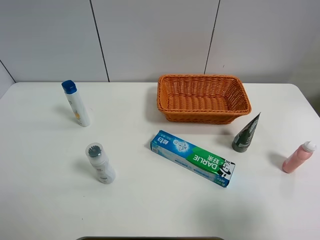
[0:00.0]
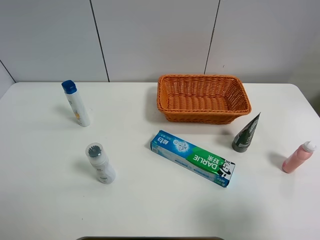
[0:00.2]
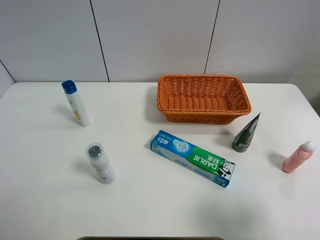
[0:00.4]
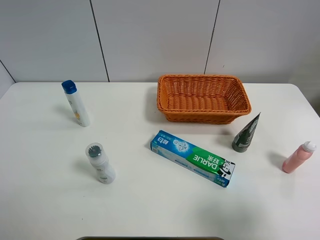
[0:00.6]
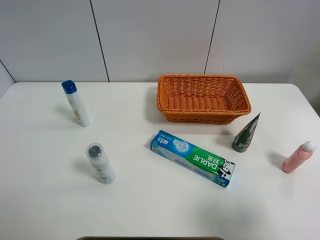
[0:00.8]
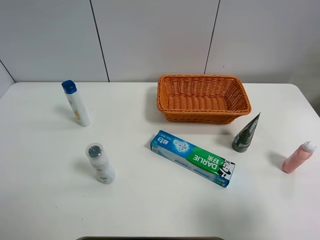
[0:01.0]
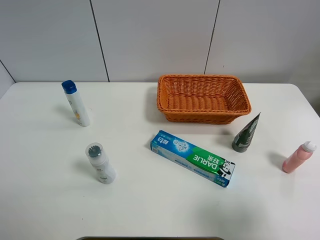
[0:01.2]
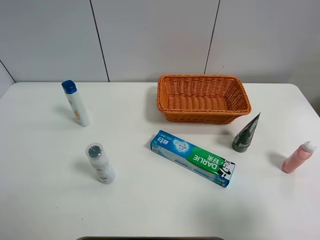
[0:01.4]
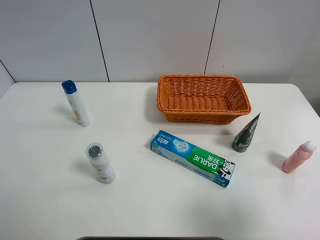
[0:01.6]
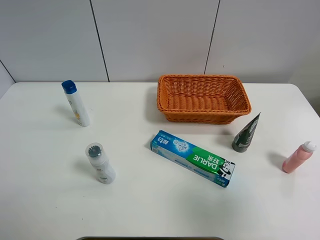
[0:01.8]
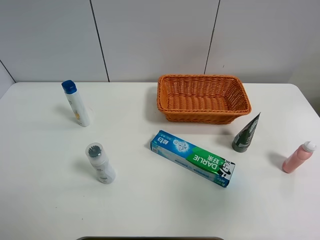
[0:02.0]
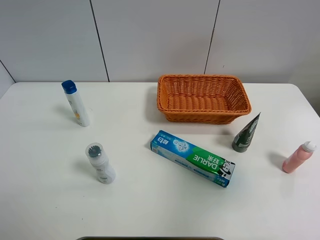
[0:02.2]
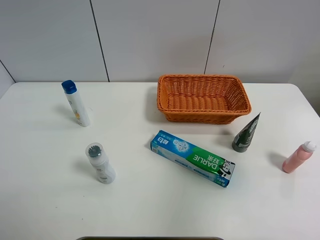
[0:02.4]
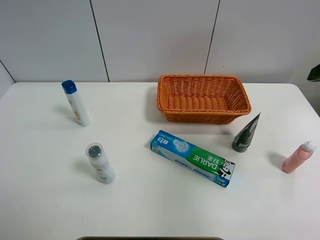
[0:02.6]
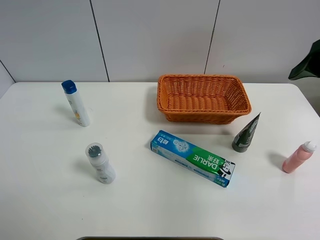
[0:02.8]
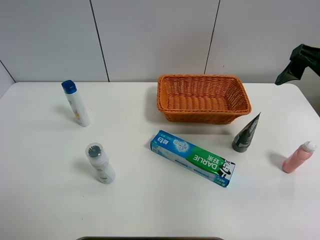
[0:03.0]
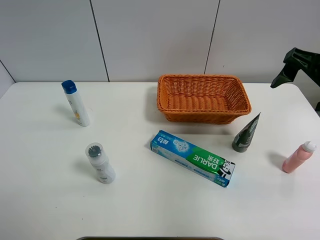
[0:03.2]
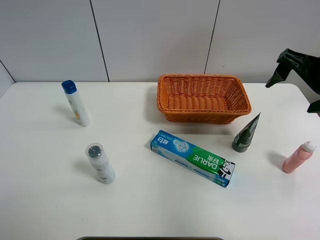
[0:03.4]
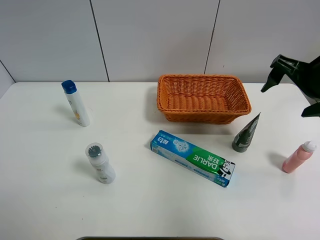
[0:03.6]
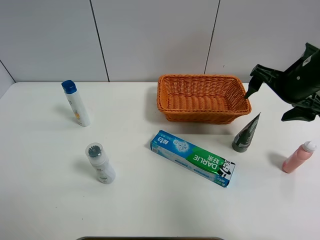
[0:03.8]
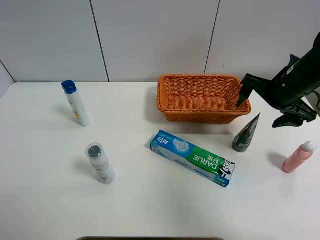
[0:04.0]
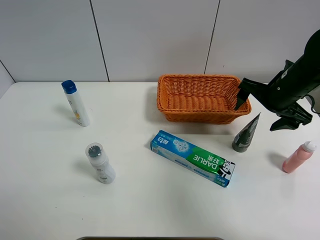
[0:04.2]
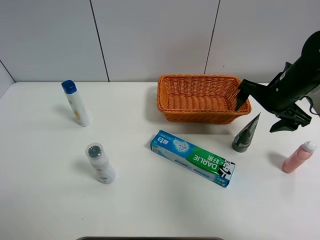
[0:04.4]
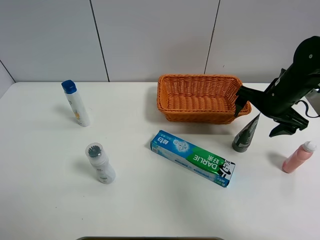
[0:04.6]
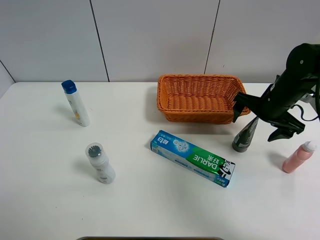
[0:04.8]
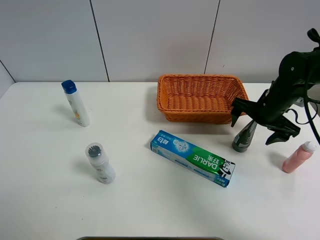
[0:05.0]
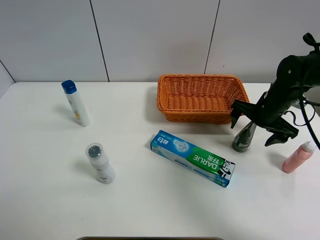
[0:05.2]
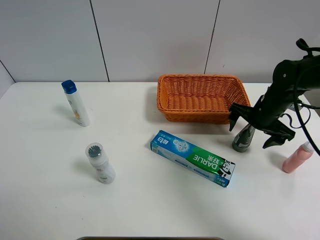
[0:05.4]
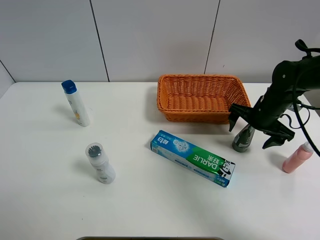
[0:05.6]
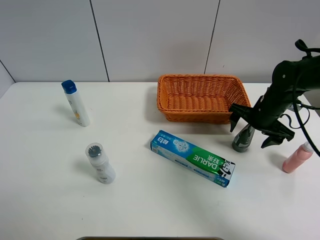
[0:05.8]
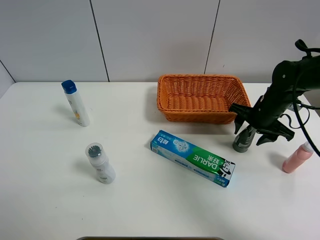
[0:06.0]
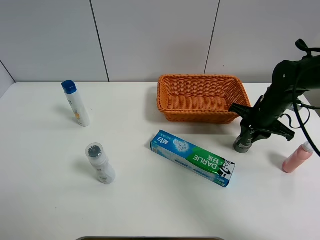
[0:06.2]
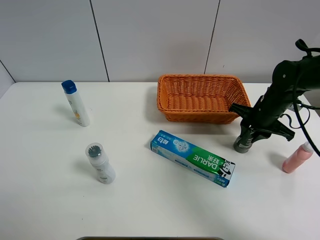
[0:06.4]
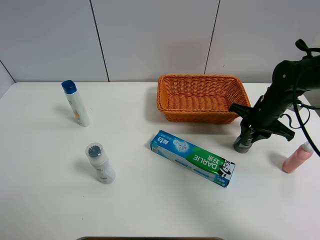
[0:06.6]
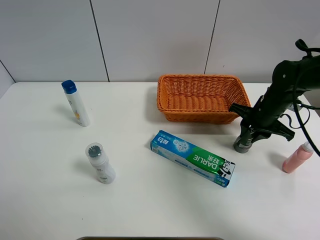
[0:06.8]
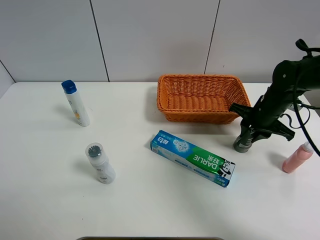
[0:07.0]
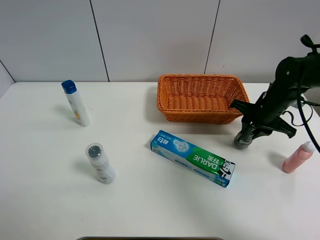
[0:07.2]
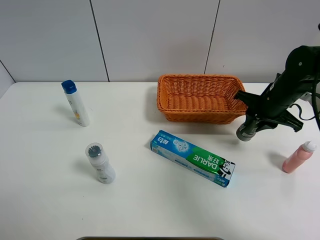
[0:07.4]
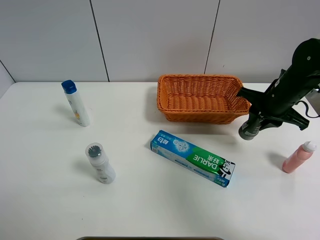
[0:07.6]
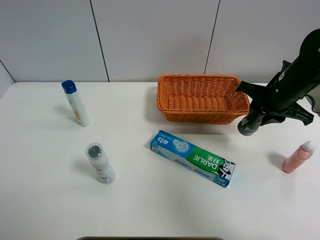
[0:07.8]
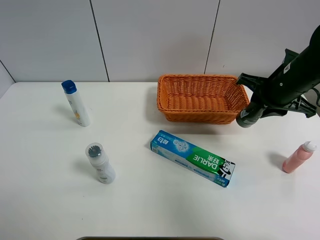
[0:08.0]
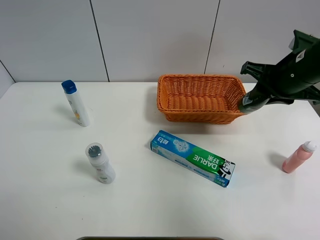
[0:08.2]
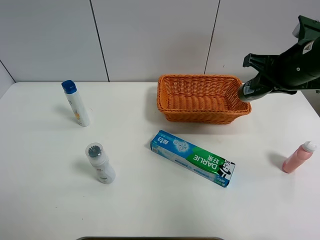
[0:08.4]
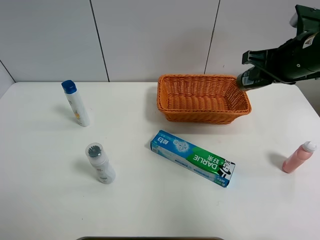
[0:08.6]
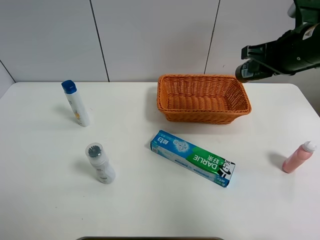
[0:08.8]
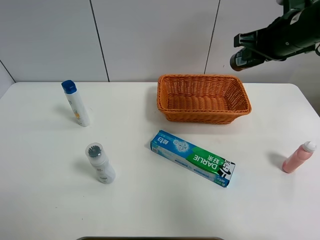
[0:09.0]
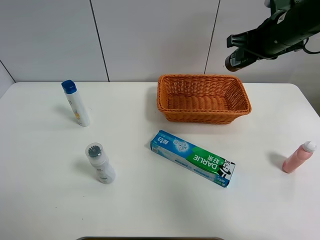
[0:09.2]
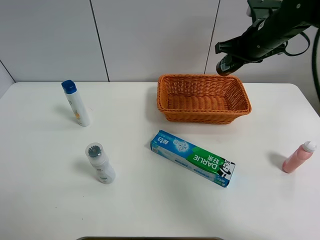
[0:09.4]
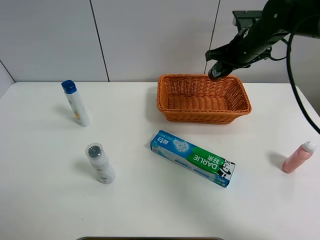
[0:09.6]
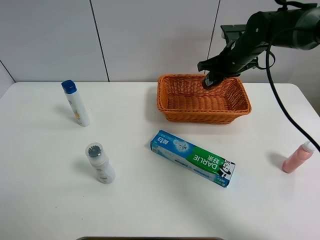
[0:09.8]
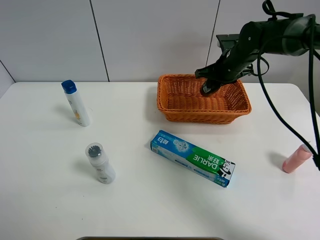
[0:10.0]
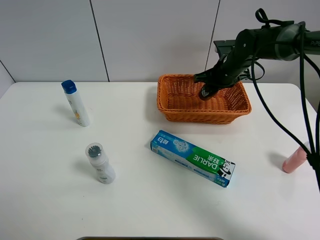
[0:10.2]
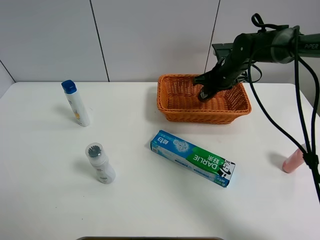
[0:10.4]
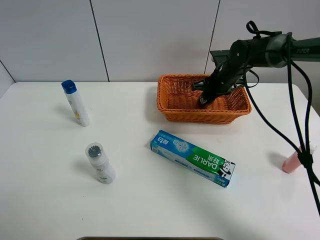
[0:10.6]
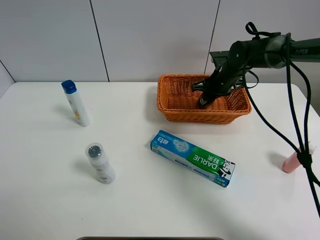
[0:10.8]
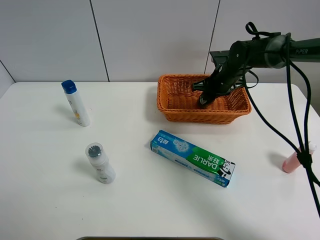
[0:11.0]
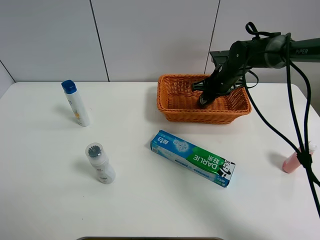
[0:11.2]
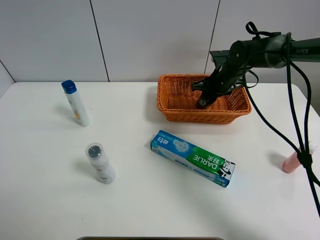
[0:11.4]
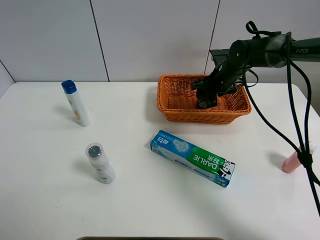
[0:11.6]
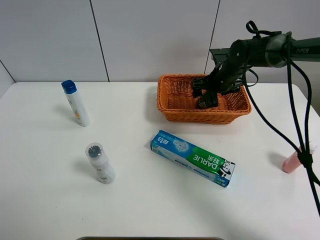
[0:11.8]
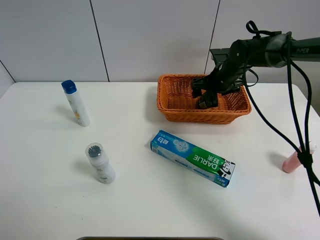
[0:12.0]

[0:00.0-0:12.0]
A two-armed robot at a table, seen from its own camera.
Task of the whole recording: Place the object closest to the toothpaste in the basket.
Step, 0:00.0 to 0:06.2: Grasp the soft facial cleanser with right gripper.
0:01.6 to 0:03.0: The right gripper goes about 25 cm forward.
0:03.0 to 0:04.4: The right gripper moves downward and forward, some 15 cm.
0:04.4 to 0:06.0: The right gripper moves downward, approximately 10 cm, and closes its fingers.
0:06.0 to 0:07.6: The right gripper heads upward, covering about 5 cm.
0:07.6 to 0:09.0: The right gripper heads upward, covering roughly 10 cm.
0:09.0 to 0:10.4: The right gripper shifts roughly 20 cm downward and forward.
0:10.4 to 0:12.0: The right gripper opens its fingers.

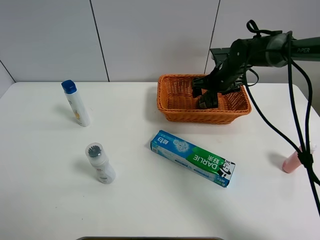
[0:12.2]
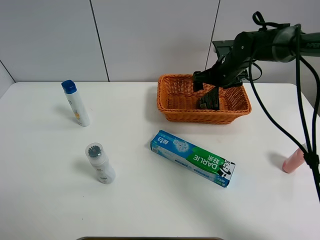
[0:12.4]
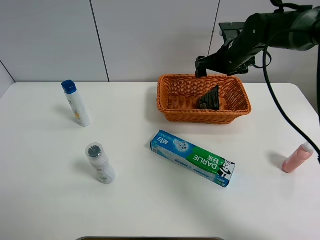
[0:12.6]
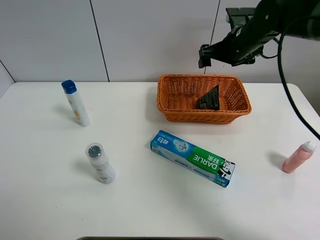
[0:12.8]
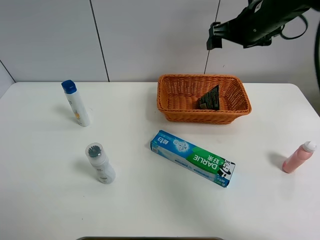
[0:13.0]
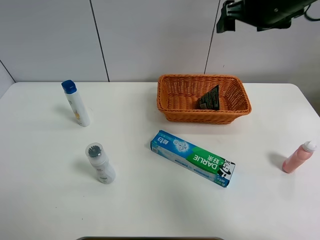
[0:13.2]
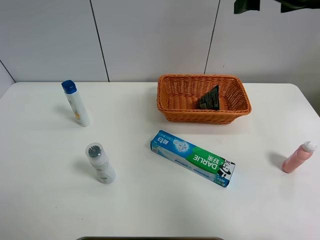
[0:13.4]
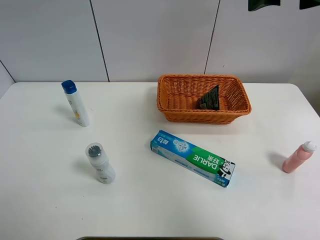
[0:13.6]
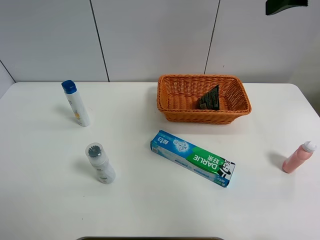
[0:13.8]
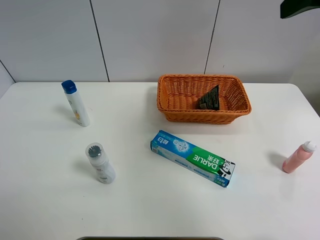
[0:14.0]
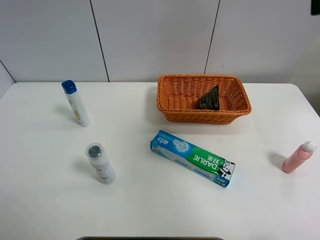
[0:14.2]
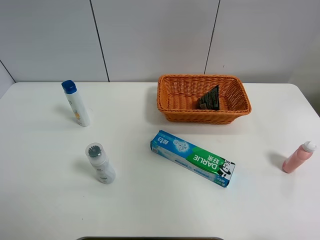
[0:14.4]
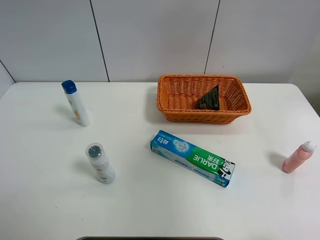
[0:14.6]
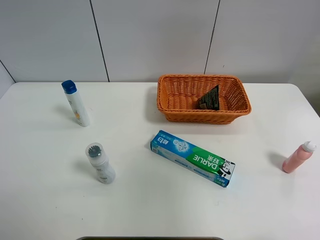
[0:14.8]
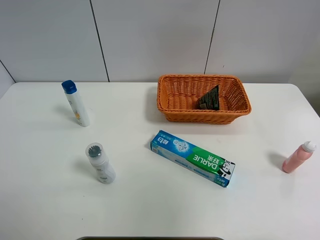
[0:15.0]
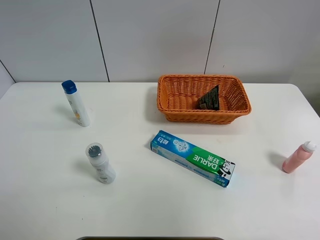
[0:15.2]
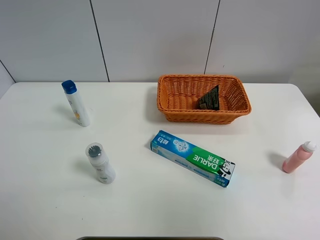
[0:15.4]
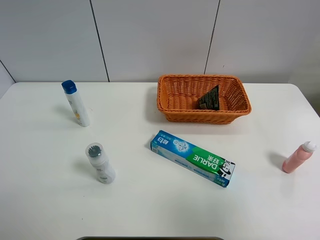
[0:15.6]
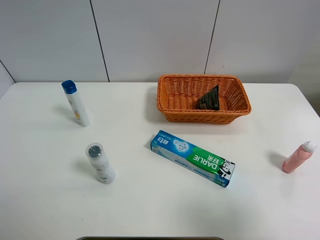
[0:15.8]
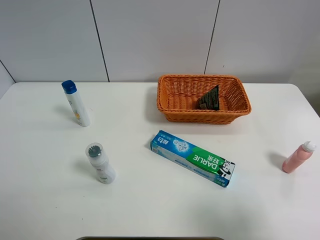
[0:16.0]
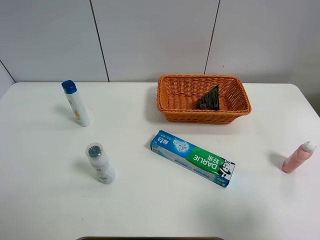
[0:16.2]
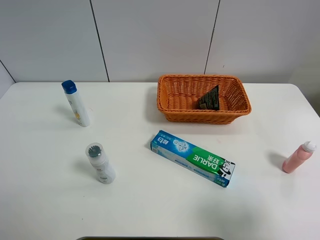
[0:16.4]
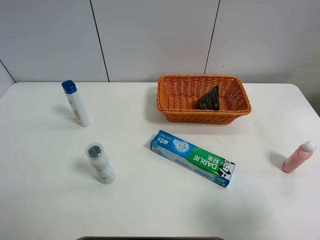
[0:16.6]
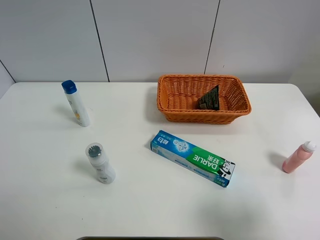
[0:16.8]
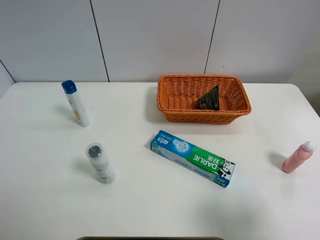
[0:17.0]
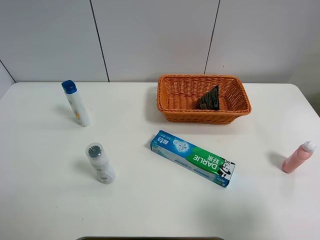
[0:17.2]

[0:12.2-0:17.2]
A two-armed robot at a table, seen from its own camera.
Task of the whole recording: Place the object closest to the toothpaste in the basket.
0:12.2 to 0:13.8: The right gripper is displaced upward and backward by about 35 cm.
0:13.8 to 0:15.6: The right gripper shifts some 25 cm backward.
0:15.6 to 0:17.2: The right gripper goes approximately 10 cm downward.
